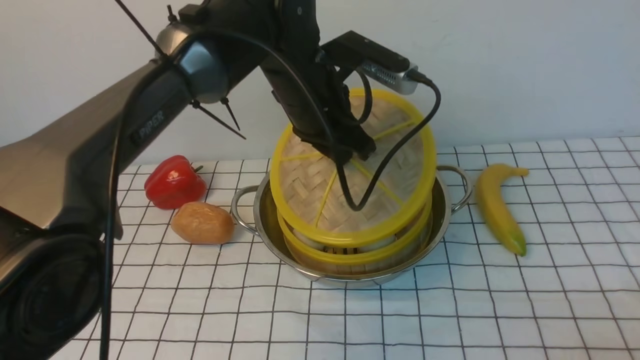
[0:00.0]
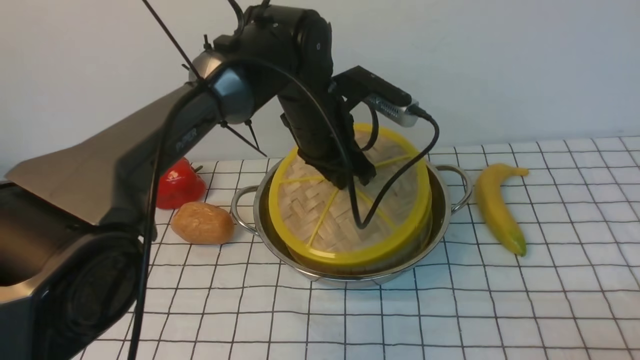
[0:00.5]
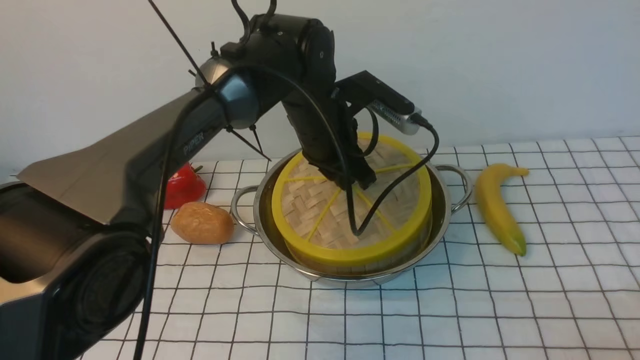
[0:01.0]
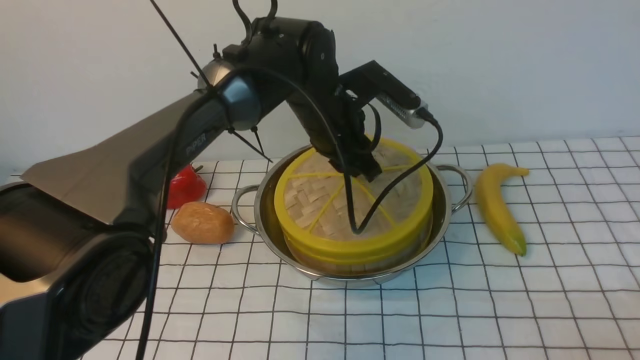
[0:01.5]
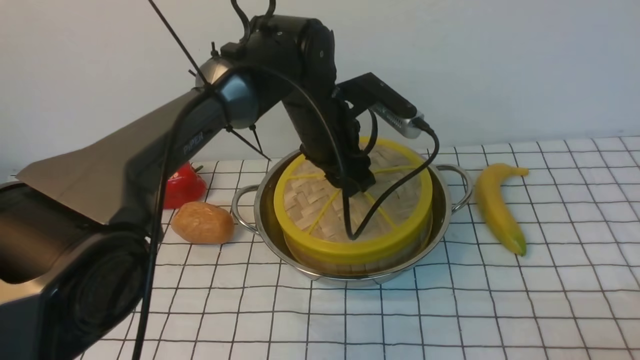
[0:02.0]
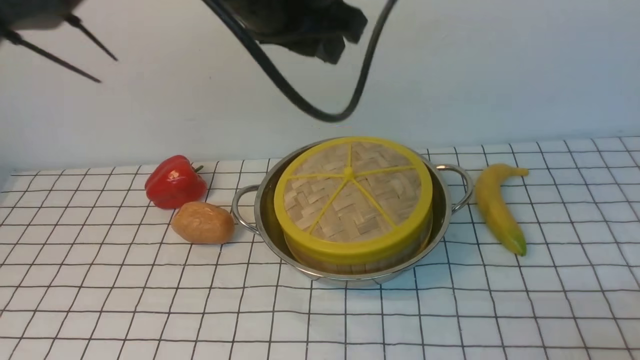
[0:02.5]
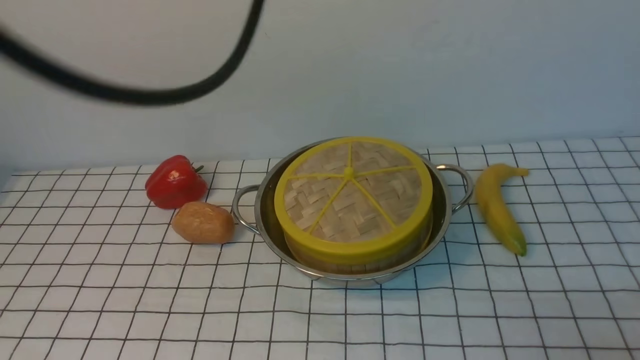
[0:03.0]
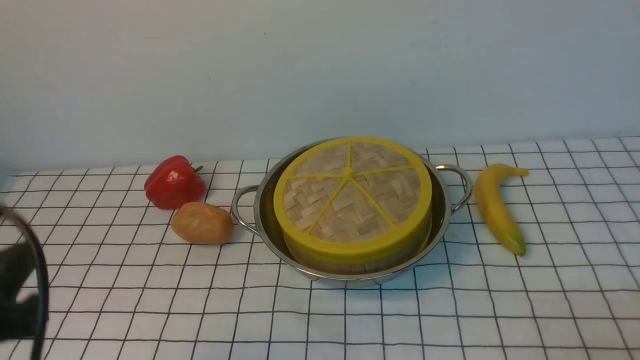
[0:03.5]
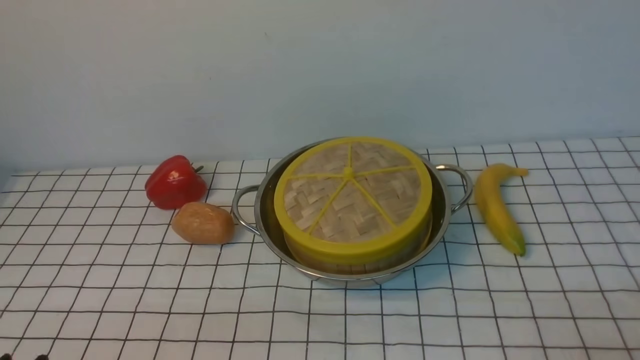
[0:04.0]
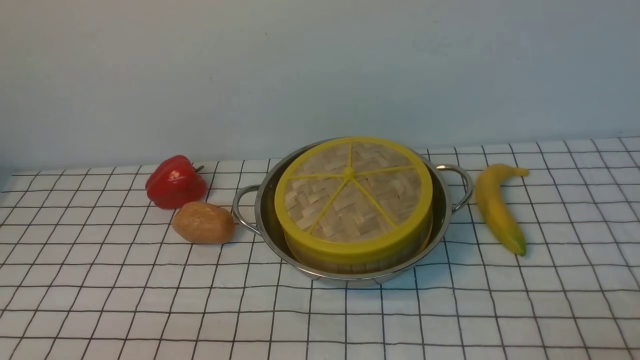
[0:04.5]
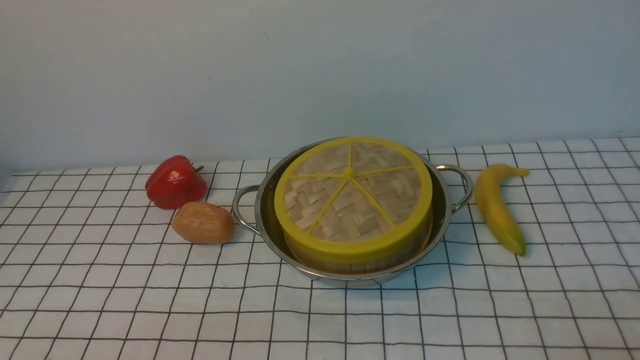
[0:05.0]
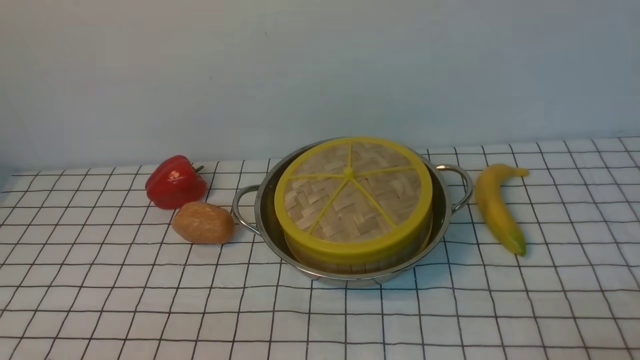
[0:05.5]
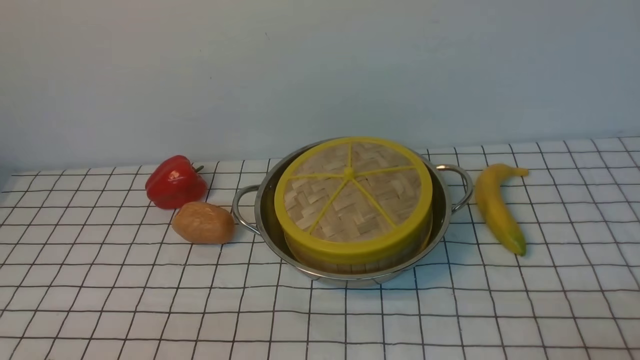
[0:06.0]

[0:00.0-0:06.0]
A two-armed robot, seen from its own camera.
Task of the whole recording: place the steamer in the pot on the white tablecloth, and put the lid on the steamer.
Step, 0:00.0 to 0:02.0: use the left arm to place the steamer lid on the steamer.
0:00.0 to 0:02.0: The left gripper opens.
0:02.0 to 0:04.0: The left gripper moves backward and to the left, roughly 40 cm, and closes its fingers.
